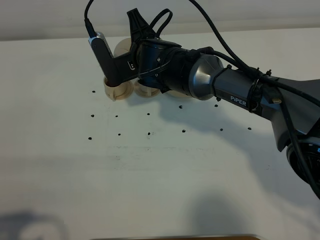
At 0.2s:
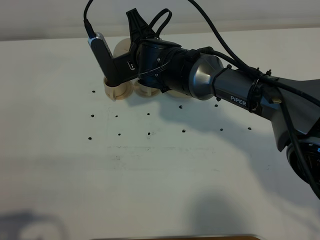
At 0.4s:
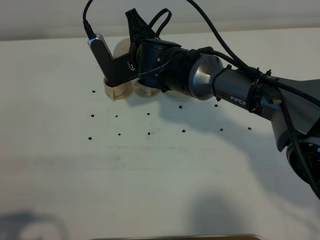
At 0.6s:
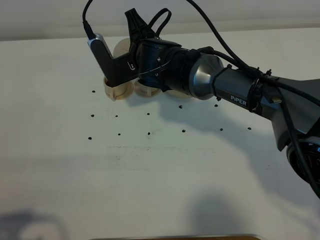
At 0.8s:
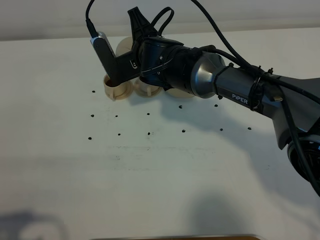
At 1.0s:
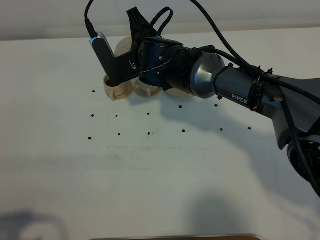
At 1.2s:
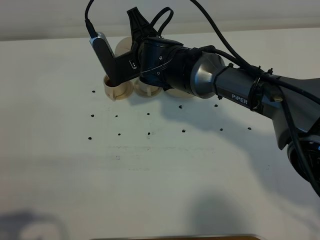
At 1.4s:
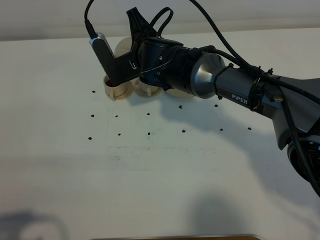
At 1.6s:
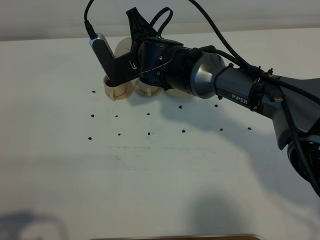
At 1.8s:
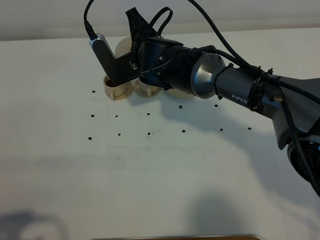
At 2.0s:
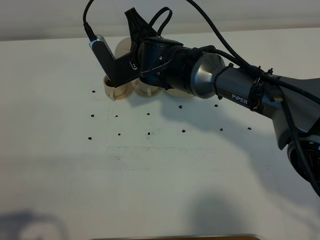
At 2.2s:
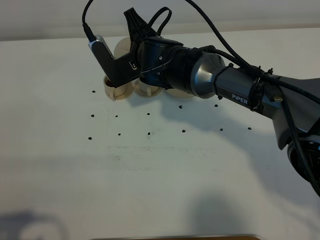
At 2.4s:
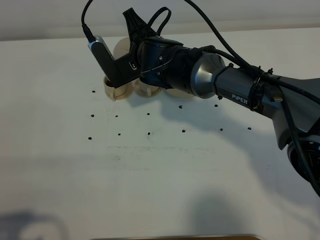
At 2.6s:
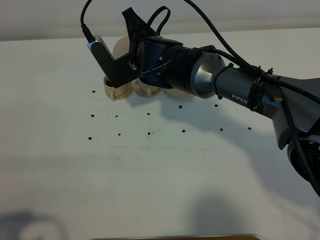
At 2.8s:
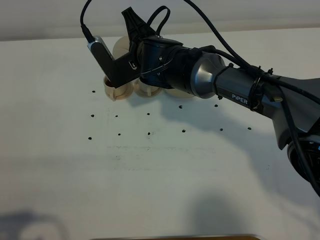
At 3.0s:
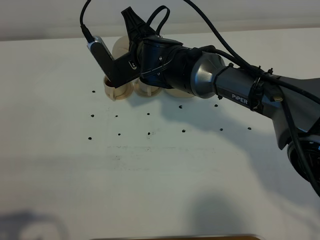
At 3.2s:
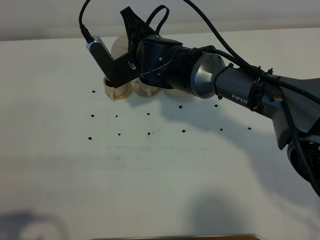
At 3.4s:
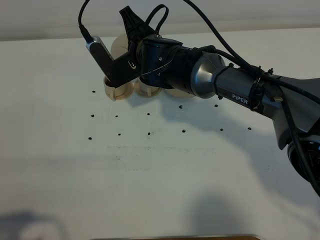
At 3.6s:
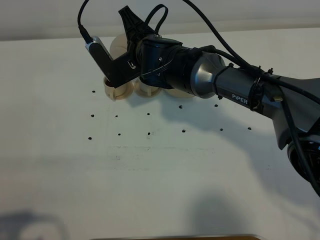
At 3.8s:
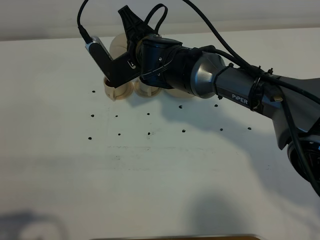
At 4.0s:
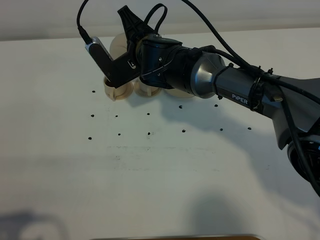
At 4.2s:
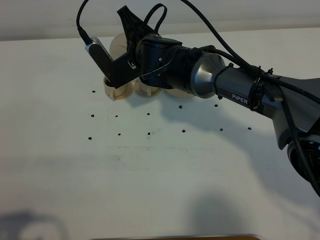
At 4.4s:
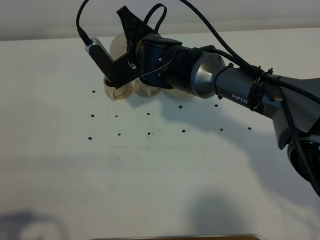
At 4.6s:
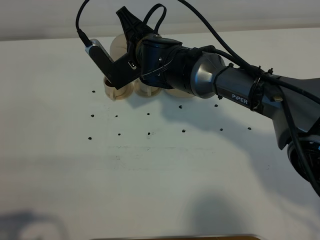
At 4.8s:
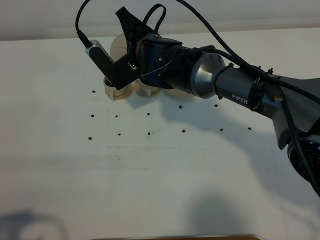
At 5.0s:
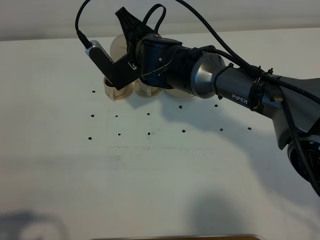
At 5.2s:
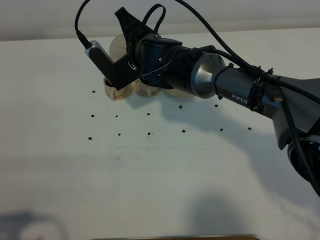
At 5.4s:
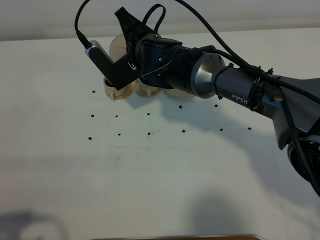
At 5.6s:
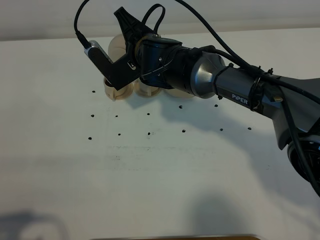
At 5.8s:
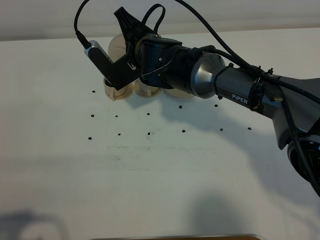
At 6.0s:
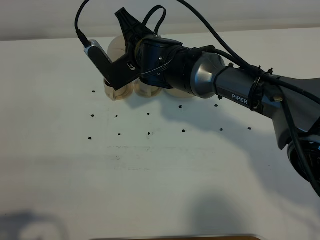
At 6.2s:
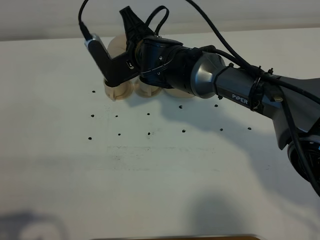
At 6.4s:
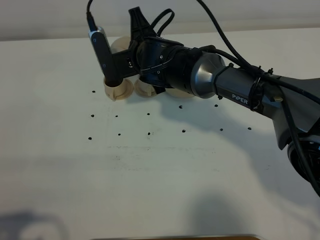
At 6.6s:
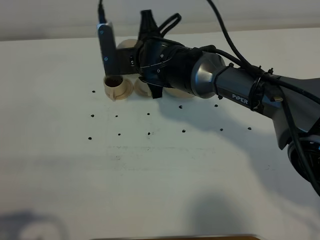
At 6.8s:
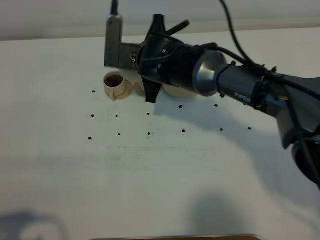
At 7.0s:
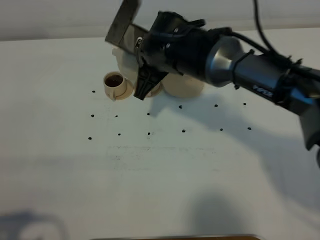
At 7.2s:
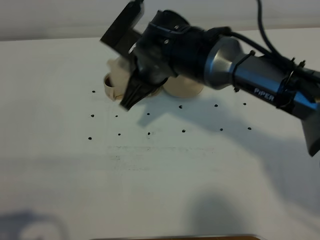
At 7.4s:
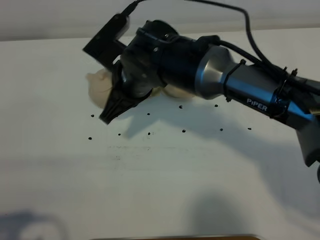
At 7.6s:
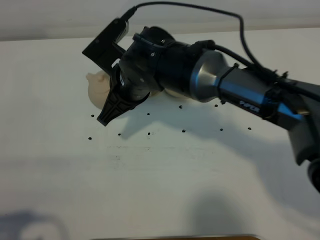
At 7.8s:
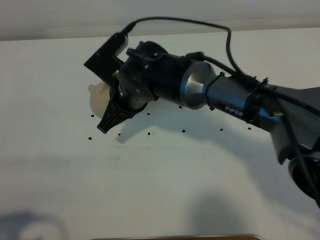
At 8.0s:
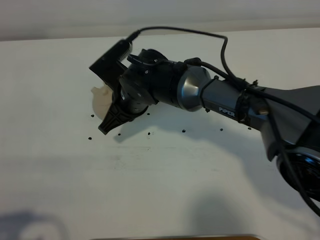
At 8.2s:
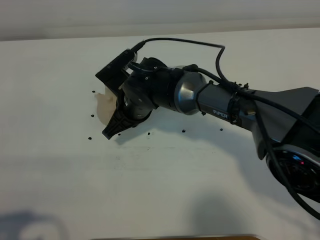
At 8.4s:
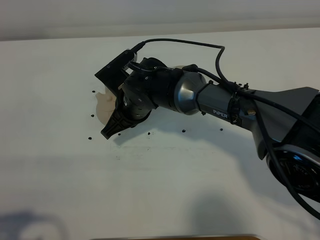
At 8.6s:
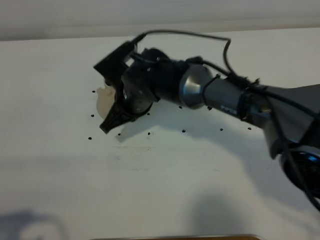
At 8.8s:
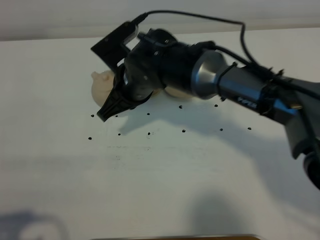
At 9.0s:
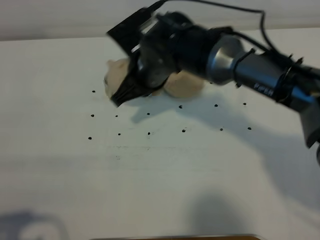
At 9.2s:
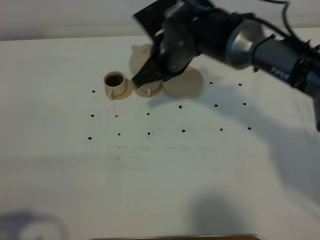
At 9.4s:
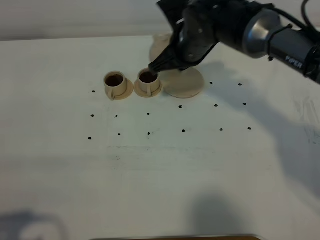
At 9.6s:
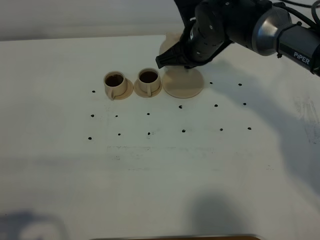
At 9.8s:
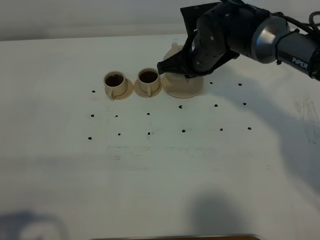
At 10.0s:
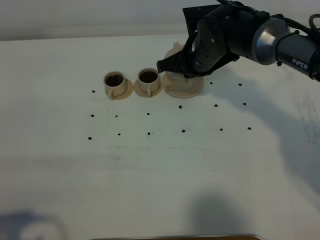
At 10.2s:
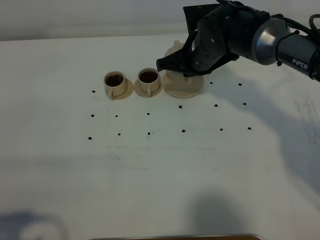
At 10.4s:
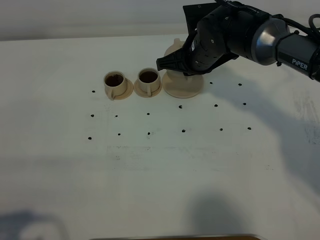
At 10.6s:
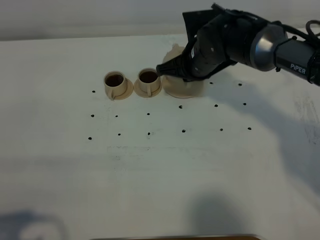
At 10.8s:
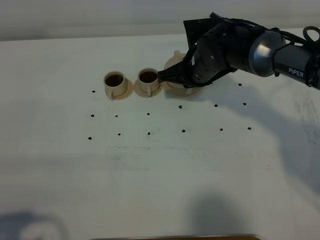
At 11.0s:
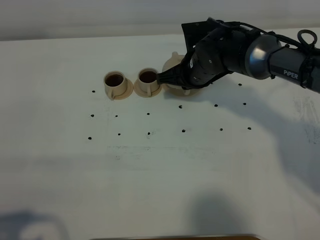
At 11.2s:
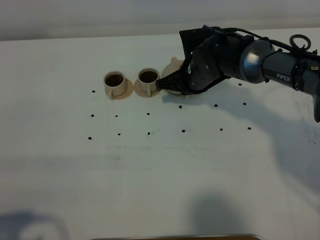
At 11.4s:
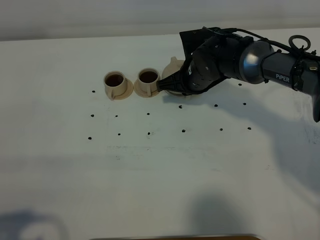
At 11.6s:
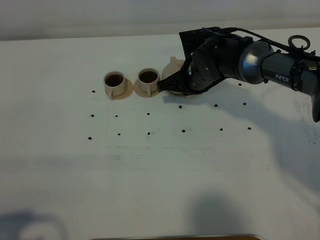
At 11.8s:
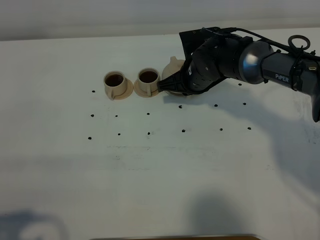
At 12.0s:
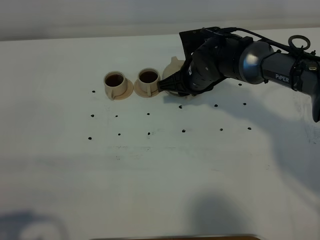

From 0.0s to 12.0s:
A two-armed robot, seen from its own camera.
Task of the whole recording: grasp the brown teapot and pour the tea into the two brown teacups one by one, put the brown teapot back in its original place.
Step, from 0.0s to 6.6s: Pour tea into the teacup with the right gripper.
From 0.0s to 1.6s: The two grippers keep their place.
From 1.6s to 3.0s: Both grippers stay put.
From 3.0s to 4.4s: The two grippers keep their place.
From 4.4s to 6.0s: The two grippers keep their place.
From 6.0s to 7.6s: The right gripper heads backward, covering about 5 cm.
From 7.6s to 9.0s: The right gripper moves some 10 cm downward and comes back.
From 9.0s to 10.4s: The right gripper heads to the right, covering approximately 10 cm.
From 10.4s to 12.0s: The right gripper travels downward by roughly 5 cm, and opens up.

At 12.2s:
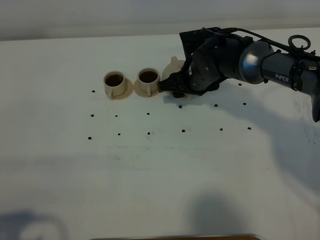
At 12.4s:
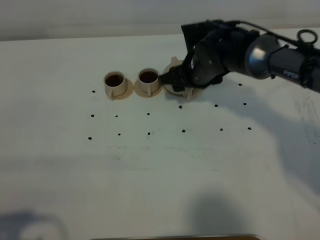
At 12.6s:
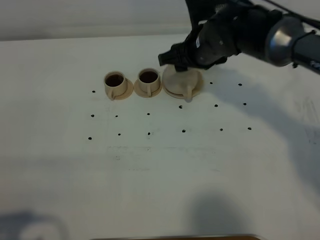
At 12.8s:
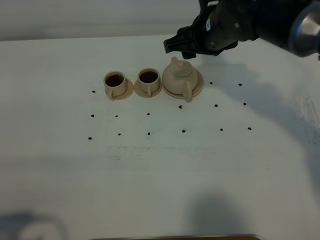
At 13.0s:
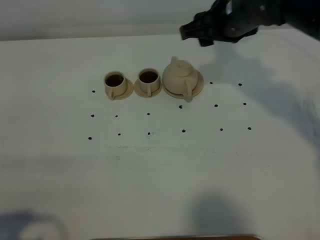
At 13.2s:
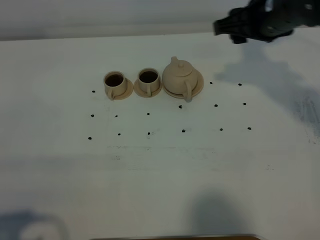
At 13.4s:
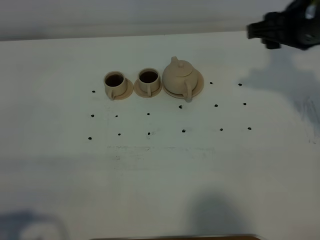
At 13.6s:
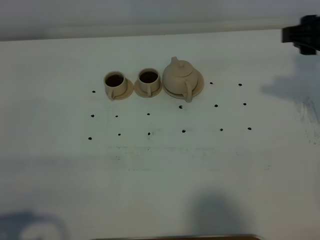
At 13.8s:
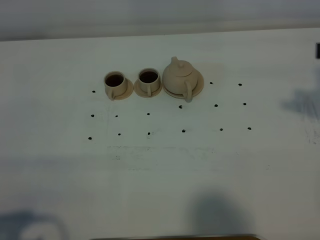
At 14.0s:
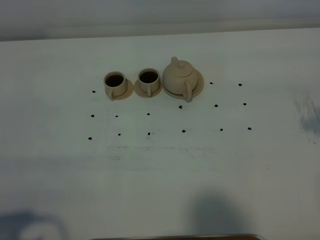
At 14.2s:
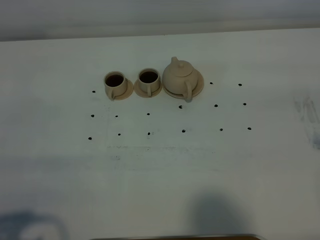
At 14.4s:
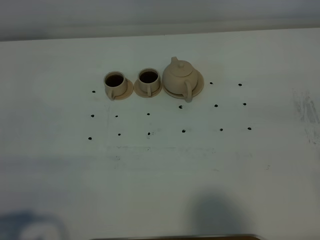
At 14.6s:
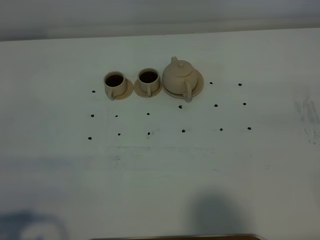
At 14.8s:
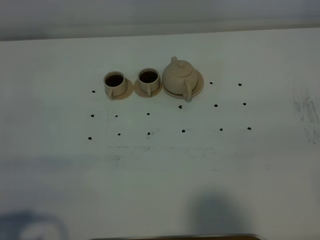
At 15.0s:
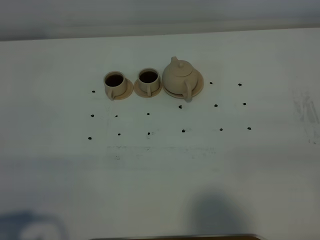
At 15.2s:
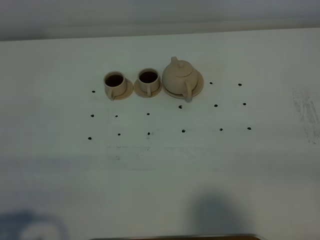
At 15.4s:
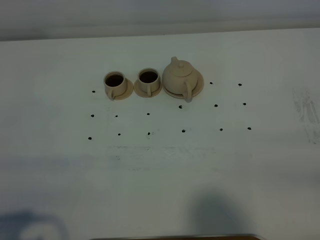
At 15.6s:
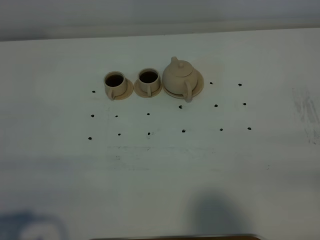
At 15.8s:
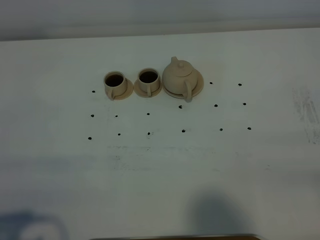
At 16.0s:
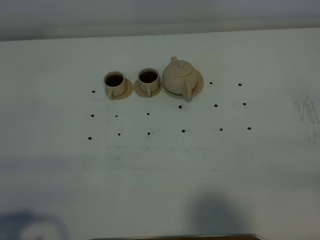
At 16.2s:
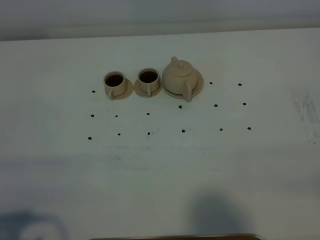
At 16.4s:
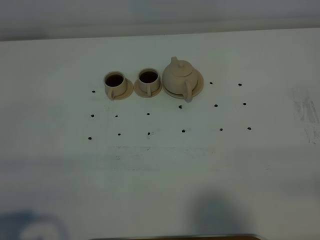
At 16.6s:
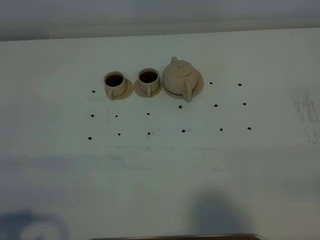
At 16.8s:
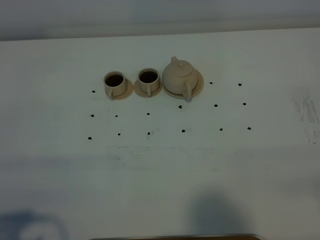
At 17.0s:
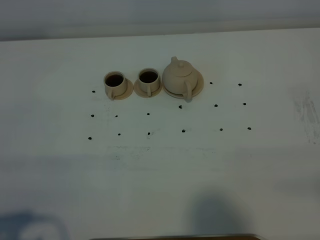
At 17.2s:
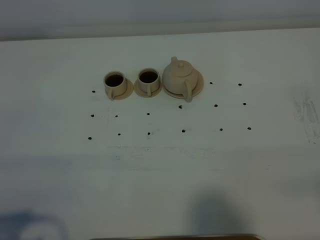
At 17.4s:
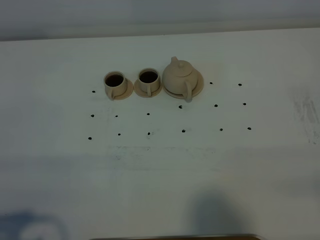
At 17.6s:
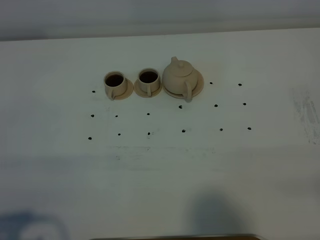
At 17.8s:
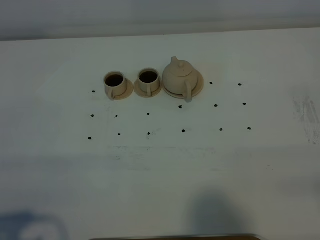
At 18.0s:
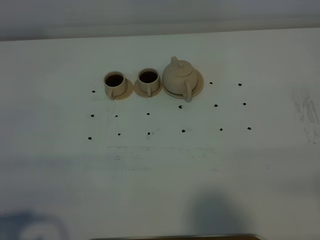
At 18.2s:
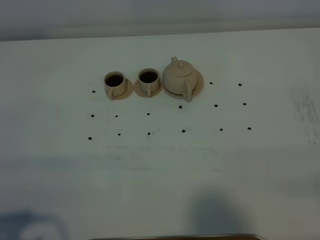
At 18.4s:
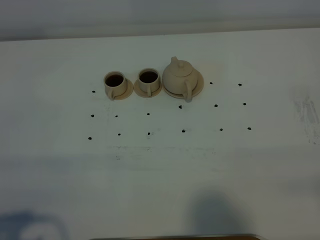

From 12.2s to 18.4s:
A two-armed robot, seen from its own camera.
Task of the whole recording: grasp the brown teapot and pour the tea into the two brown teacups one by one, put the brown teapot back in its original place.
From 12.2s to 13.8s: The right gripper goes about 35 cm to the right, upward and backward.
From 16.8s to 18.4s: The two grippers keep their place.

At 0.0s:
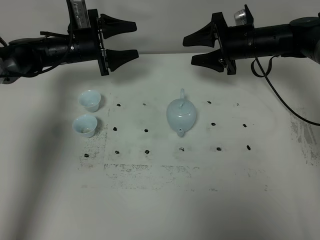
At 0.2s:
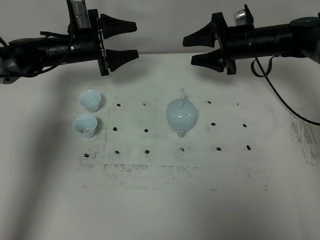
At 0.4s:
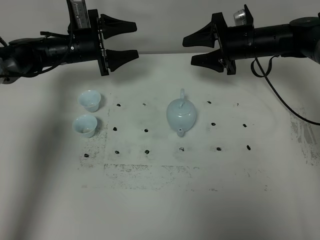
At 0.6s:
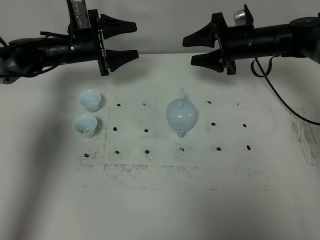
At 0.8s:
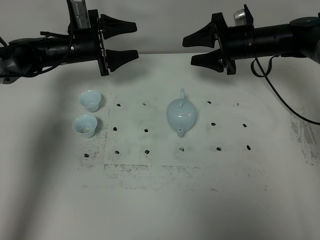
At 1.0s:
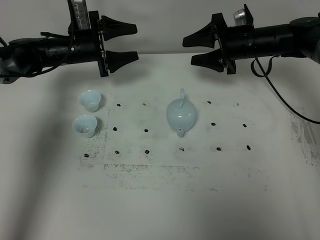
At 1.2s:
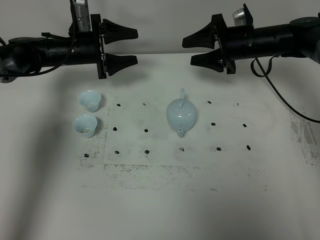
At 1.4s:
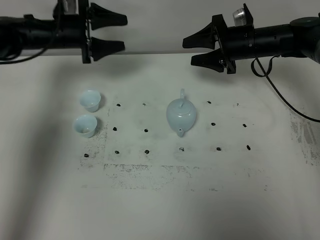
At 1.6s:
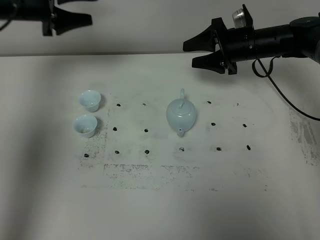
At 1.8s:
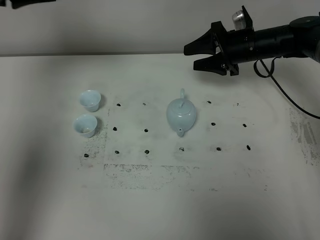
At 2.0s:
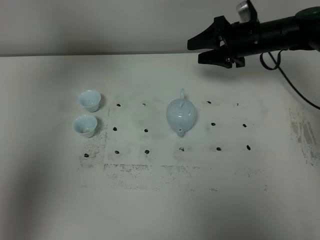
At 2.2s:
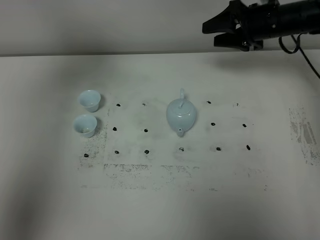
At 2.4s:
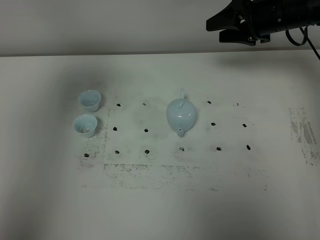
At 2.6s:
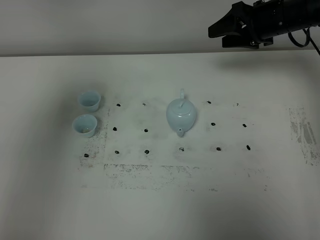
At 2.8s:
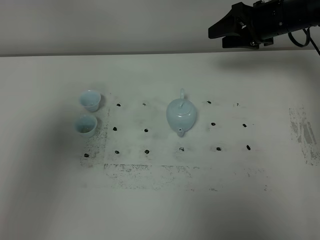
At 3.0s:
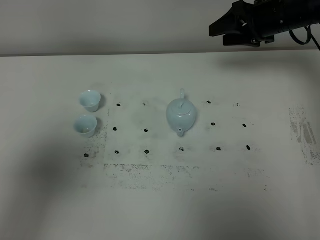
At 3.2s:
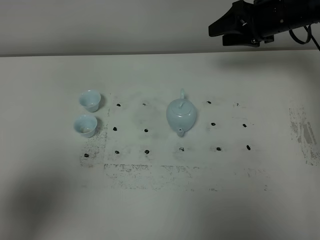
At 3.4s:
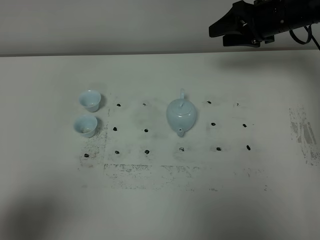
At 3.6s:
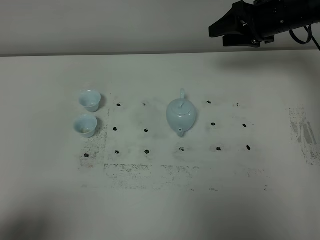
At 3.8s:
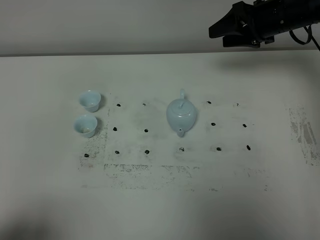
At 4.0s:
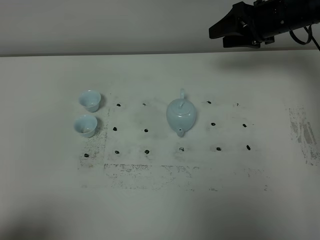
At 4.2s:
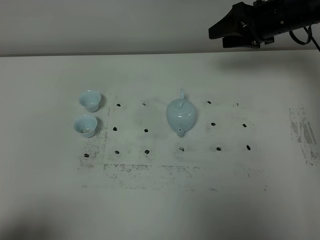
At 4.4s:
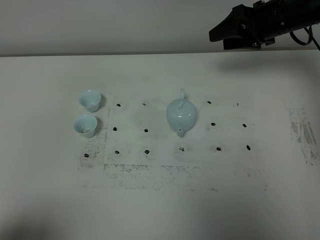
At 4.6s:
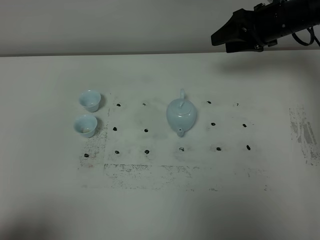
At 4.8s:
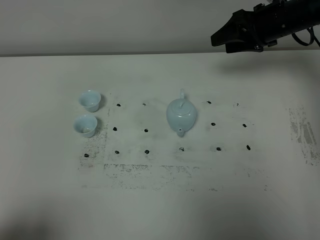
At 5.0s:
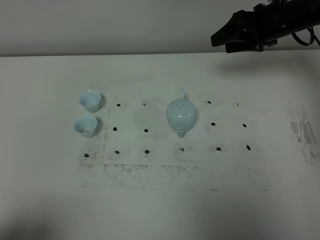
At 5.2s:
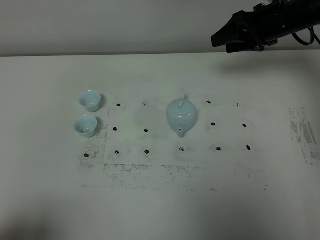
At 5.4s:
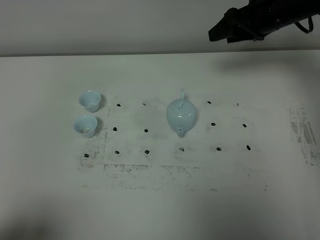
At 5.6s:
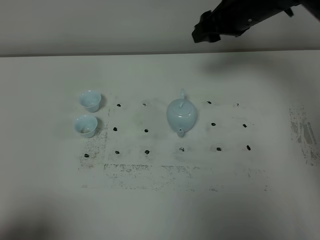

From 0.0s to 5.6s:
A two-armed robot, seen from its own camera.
Task of the whole recording: grasp the blue porcelain teapot and pour the tea into the two blue porcelain teacups one by one, put the blue porcelain teapot back in its original place.
From 0.0s to 1.4s: The left gripper travels upward by about 5 cm.
From 1.4s to 2.8s: The left gripper goes roughly 40 cm backward and upward. Meanwhile the right gripper shifts approximately 5 cm upward.
From 2.8s to 4.2s: The left gripper goes some 20 cm downward and backward.
From 4.2s to 5.6s: The right gripper is displaced to the left by roughly 10 cm.
